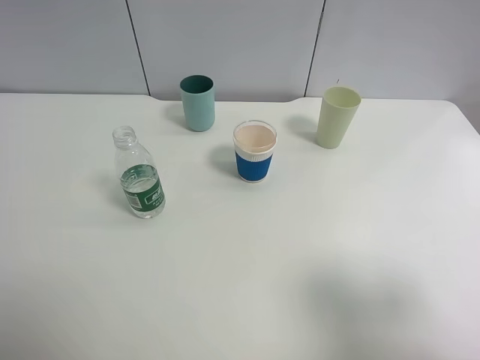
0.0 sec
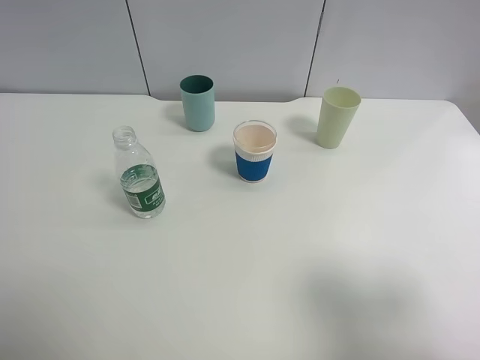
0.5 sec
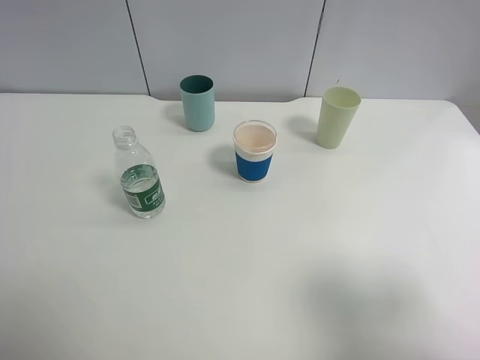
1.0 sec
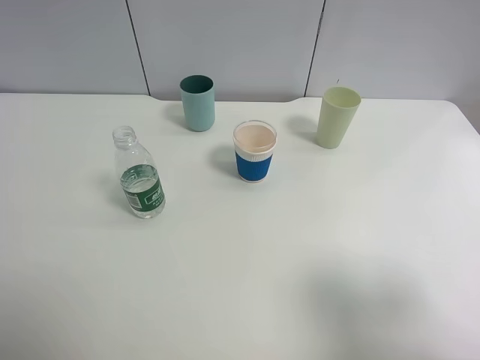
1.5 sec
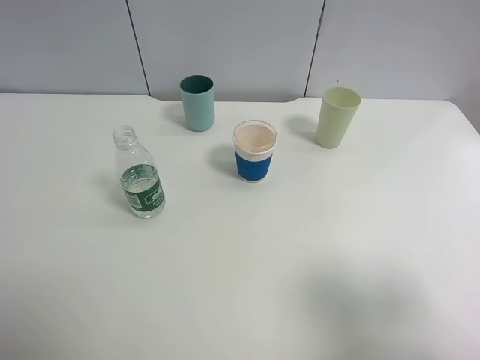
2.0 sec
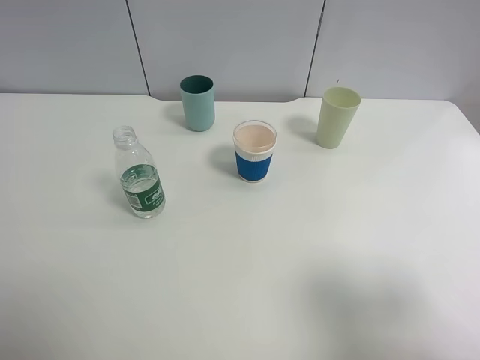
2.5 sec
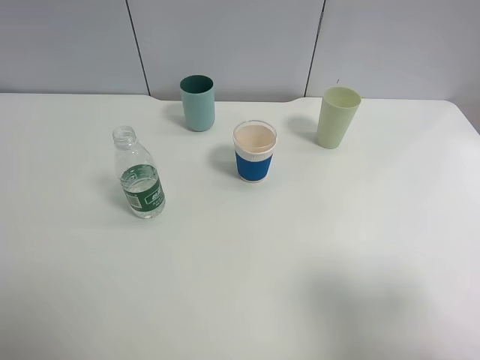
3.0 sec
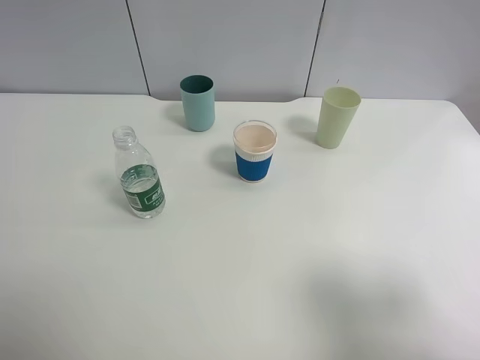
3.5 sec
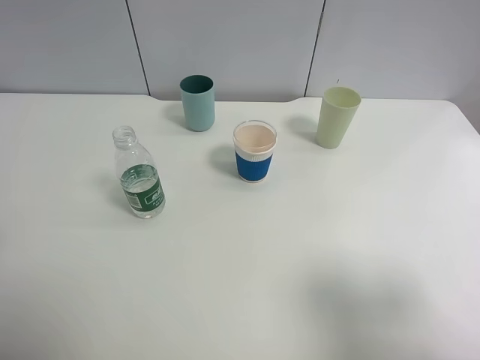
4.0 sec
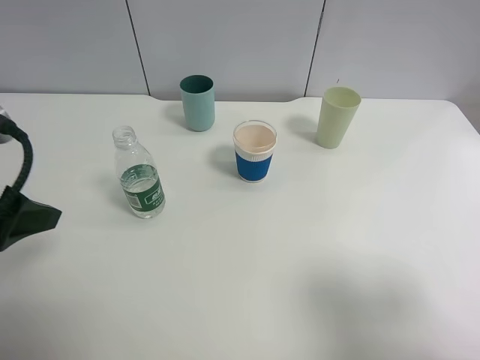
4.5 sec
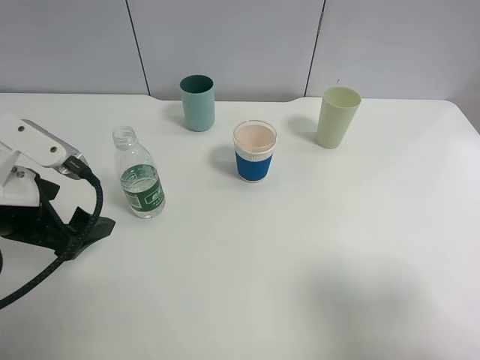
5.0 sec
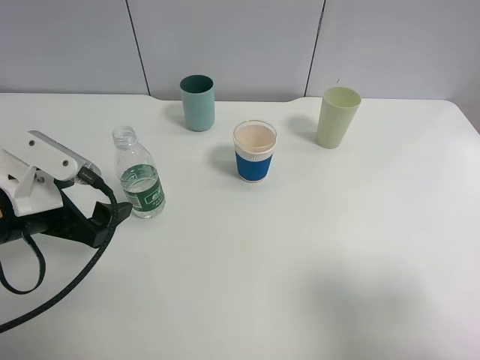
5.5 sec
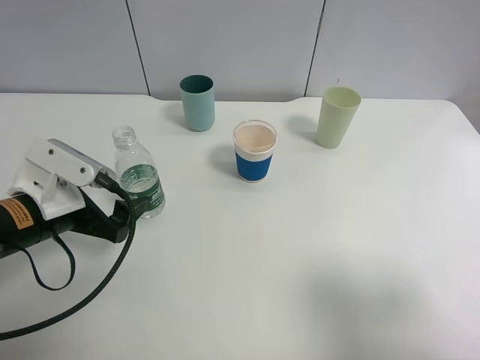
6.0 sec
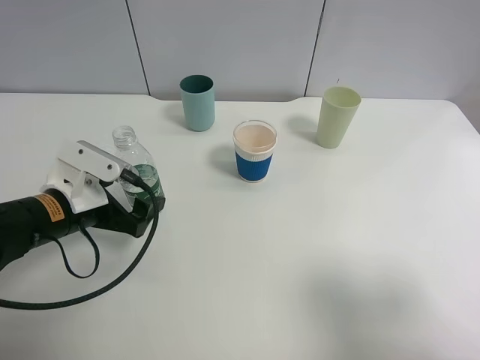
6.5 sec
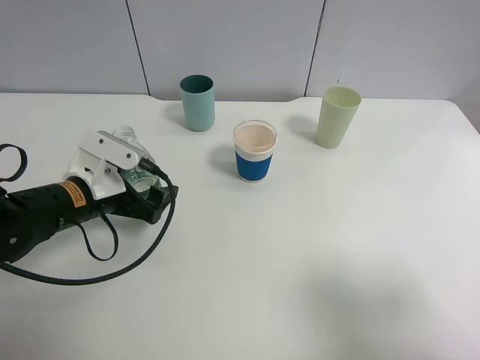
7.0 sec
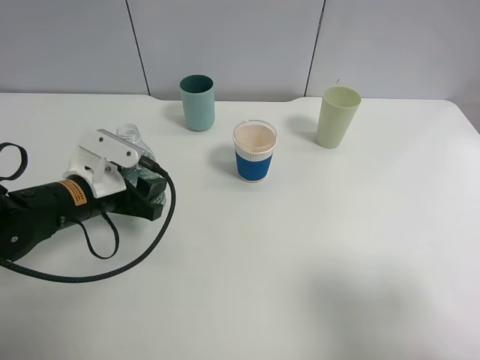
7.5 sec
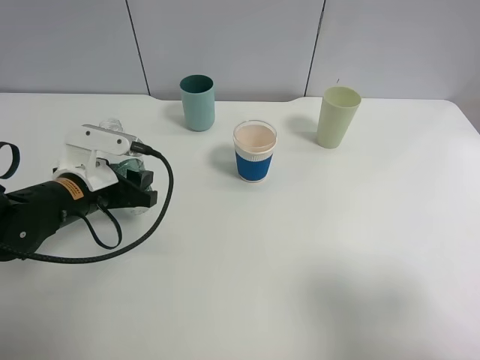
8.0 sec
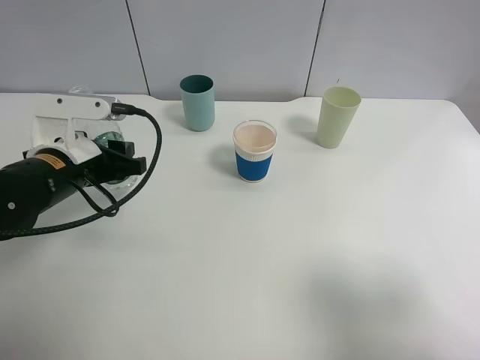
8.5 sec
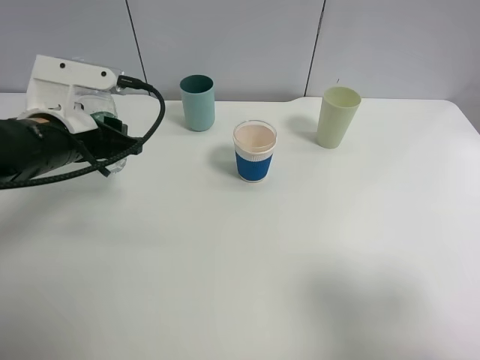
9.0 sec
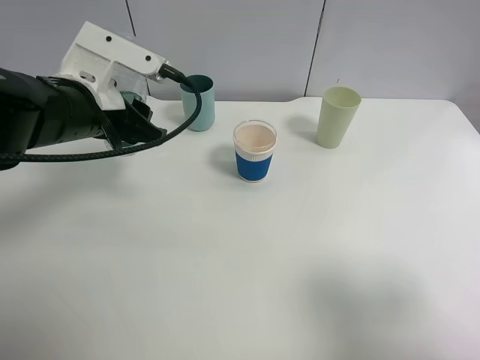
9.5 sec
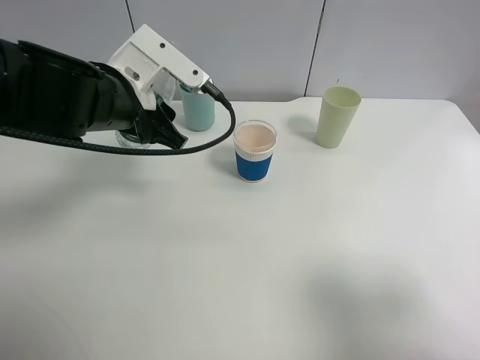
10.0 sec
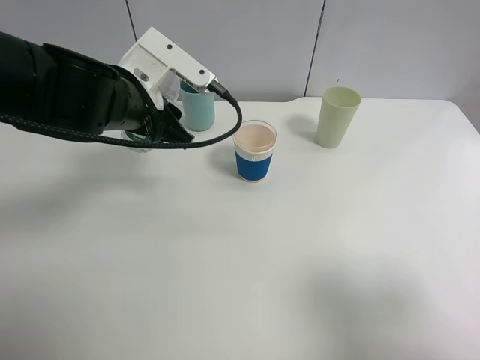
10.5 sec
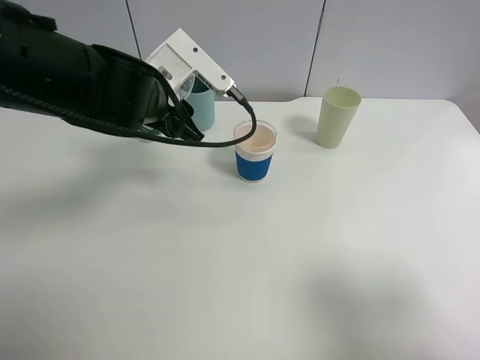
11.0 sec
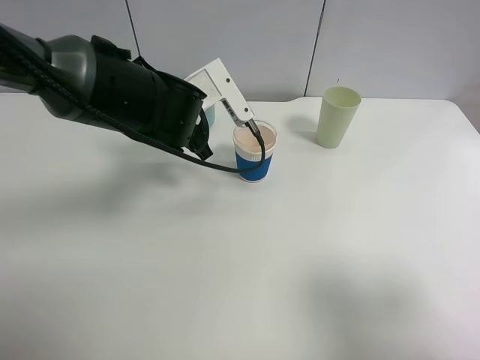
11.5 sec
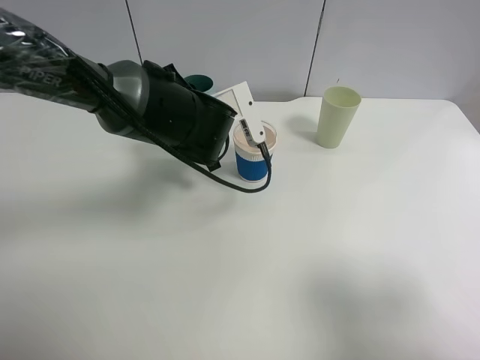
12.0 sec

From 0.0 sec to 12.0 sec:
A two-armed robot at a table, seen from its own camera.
Task of the whole recording: use a clamp to hold the bottle of the drink, pour the beverage into a random cup, then clamp the cup containing the drink and pour the drink into another random cup.
Step, from 0.0 sec to 8.0 sec: Pick up the water bottle with left gripper.
From 0.0 sec to 2.0 sec: Both grippers stay put.
From 4.0 sec to 6.0 sec: The left gripper shifts some 20 cm downward, forward and to the right.
From 6.0 sec to 8.0 sec: The left gripper shifts approximately 5 cm forward, and closes.
From 8.0 sec to 10.0 sec: The left gripper shifts some 10 cm upward and to the right.
From 10.0 sec to 12.0 sec: The left gripper is displaced to the right and downward by approximately 10 cm.

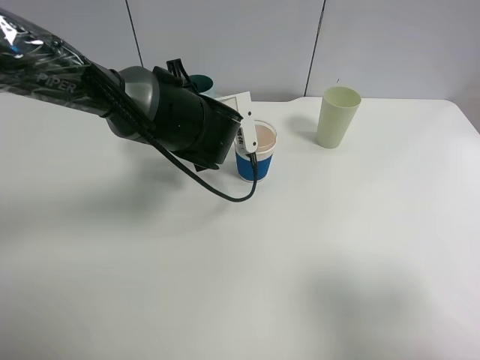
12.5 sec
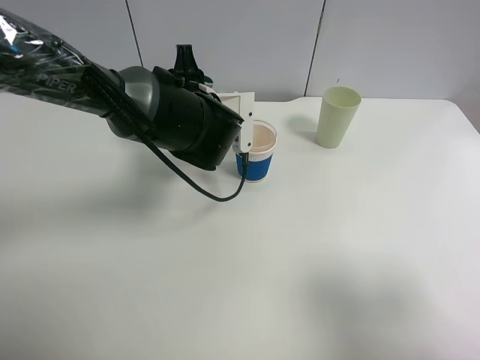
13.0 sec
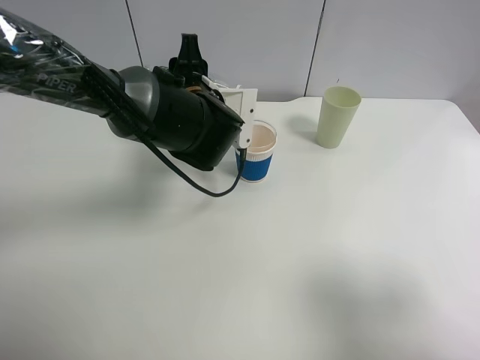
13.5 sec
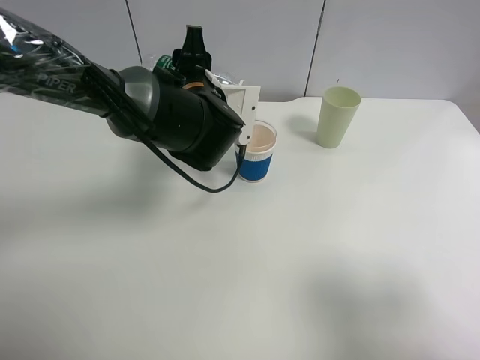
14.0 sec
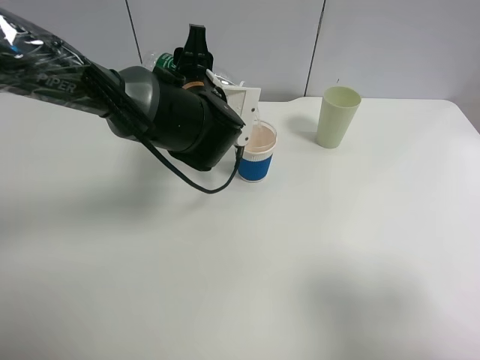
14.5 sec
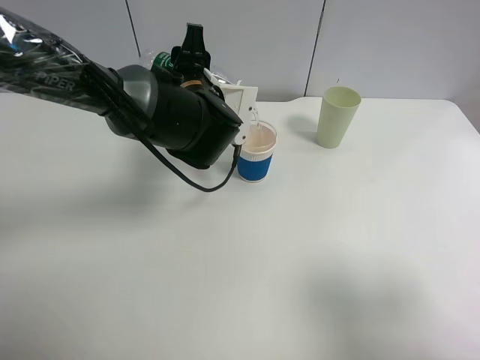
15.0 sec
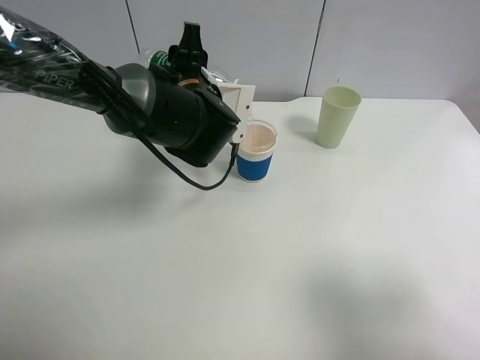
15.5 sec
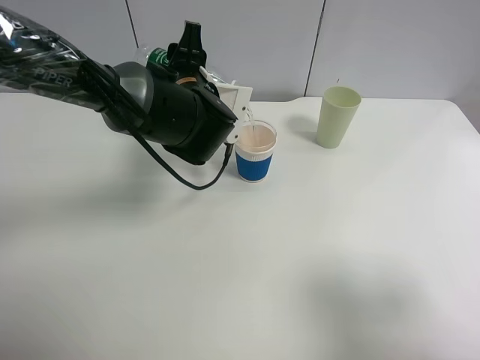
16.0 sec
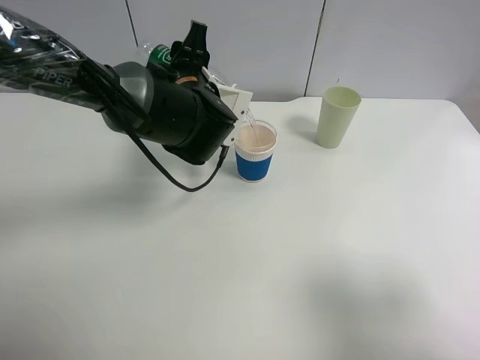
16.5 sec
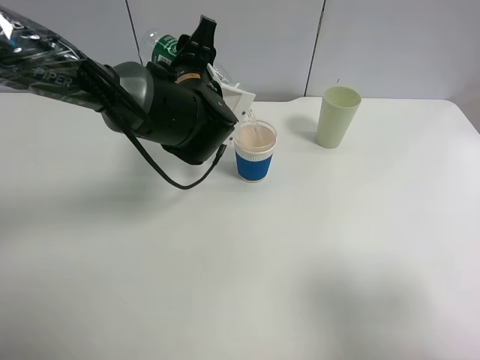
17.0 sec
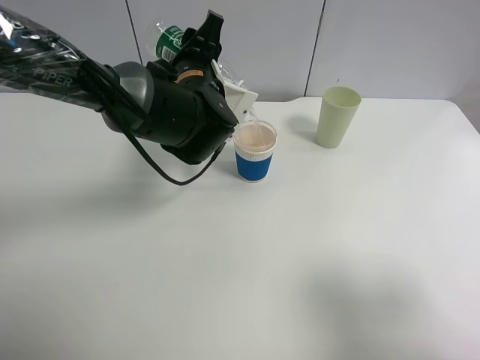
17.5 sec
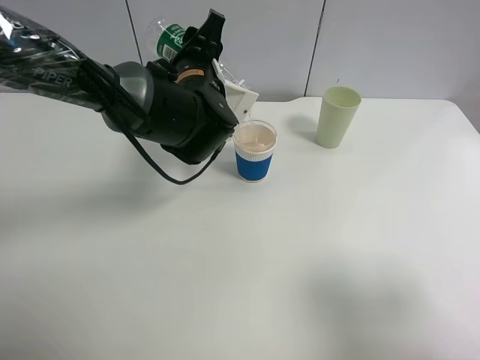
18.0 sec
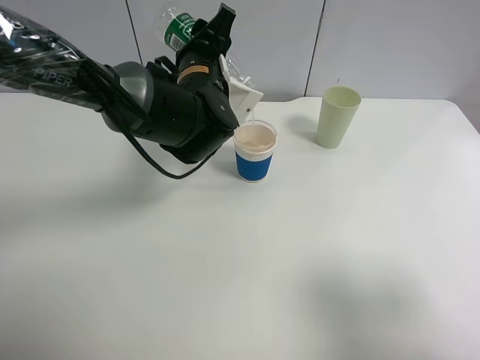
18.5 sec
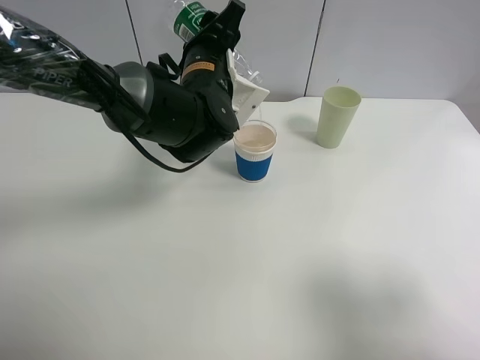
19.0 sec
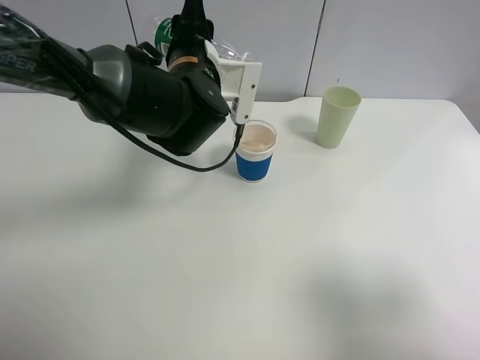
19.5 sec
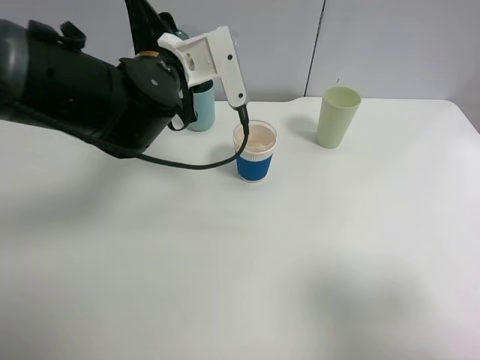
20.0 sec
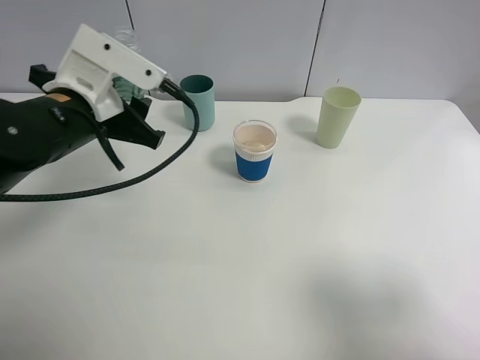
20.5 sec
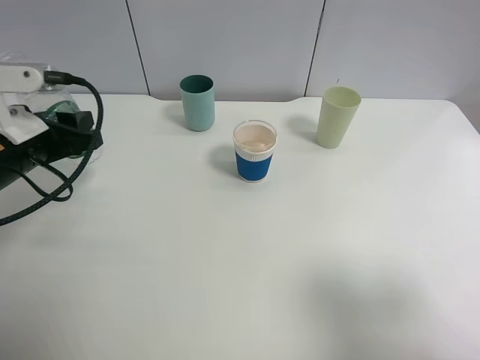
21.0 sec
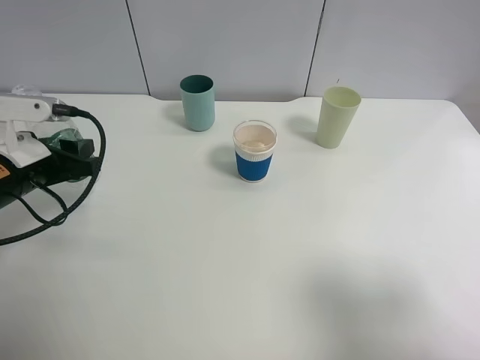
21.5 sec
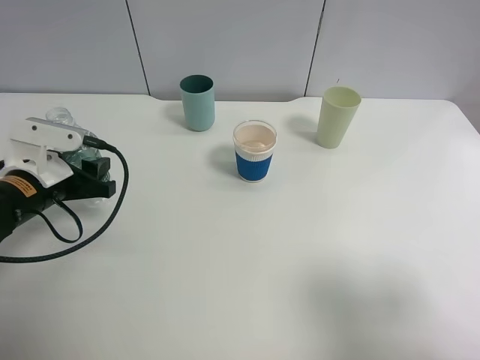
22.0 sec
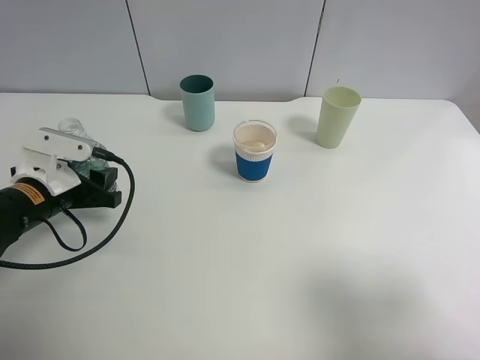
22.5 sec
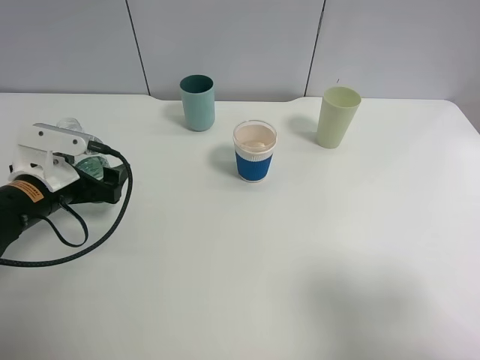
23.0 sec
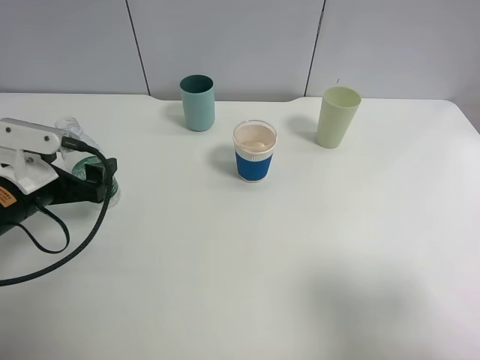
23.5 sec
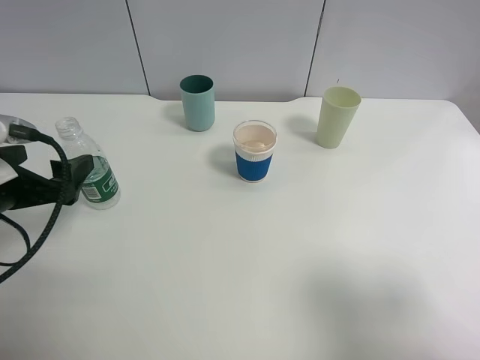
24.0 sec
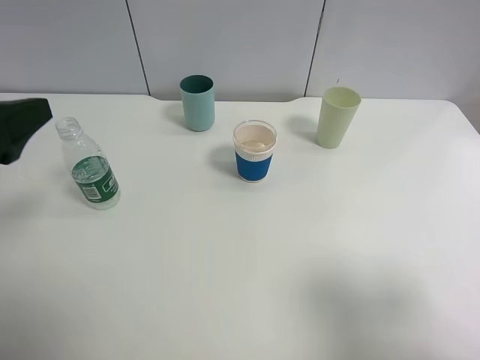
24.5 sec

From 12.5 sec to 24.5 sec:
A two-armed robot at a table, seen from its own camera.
Task of the whole recording: use a clamp to hold the bottle of the drink, pour the beverage into a random cup, then clamp the cup containing the drink and pour the drink into another random cup.
Step, from 12.5 sec to 19.5 sec: Pour water into the paper cup with left gripper.
Step, from 20.0 sec to 23.5 sec: Place the water bottle on the table with left gripper.
From 14.5 sec to 16.5 sec: There are only small adjustments of the grippers.
From 16.5 sec to 18.5 sec: There are only small adjustments of the grippers.
From 18.5 sec to 20.5 sec: The left gripper moves to the left and backward, roughly 15 cm.
From 20.5 sec to 22.5 sec: The left gripper is displaced downward and to the left by some 15 cm.
From 22.5 sec to 24.5 sec: The left gripper goes approximately 20 cm upward and backward, and opens up.

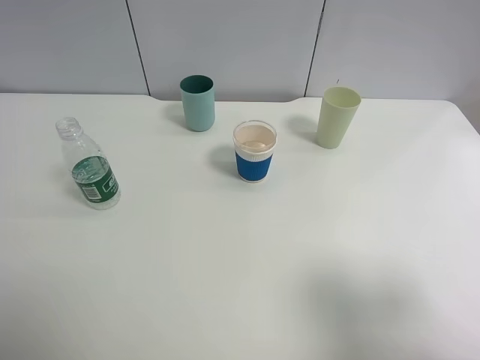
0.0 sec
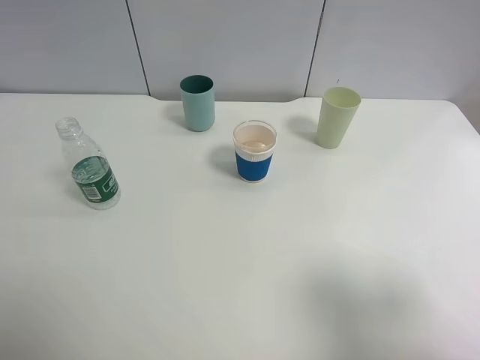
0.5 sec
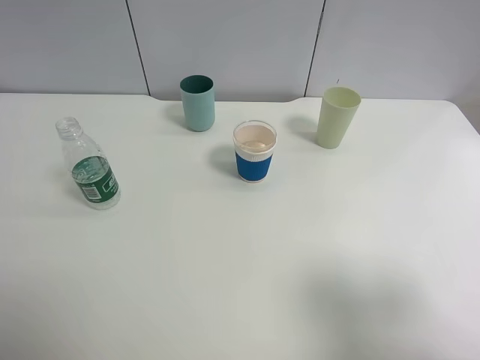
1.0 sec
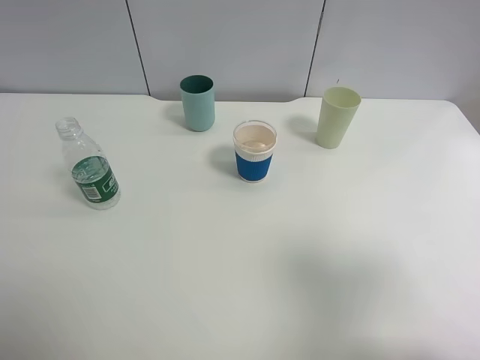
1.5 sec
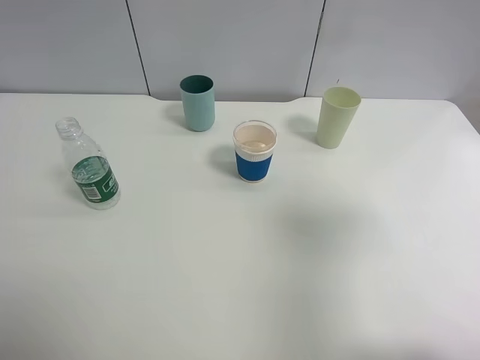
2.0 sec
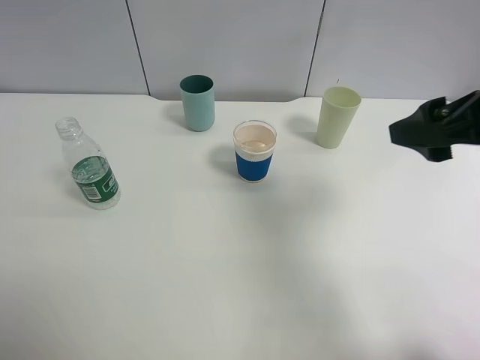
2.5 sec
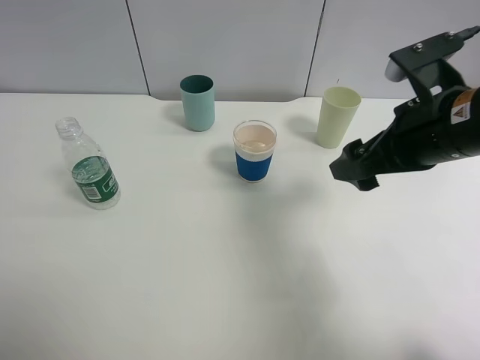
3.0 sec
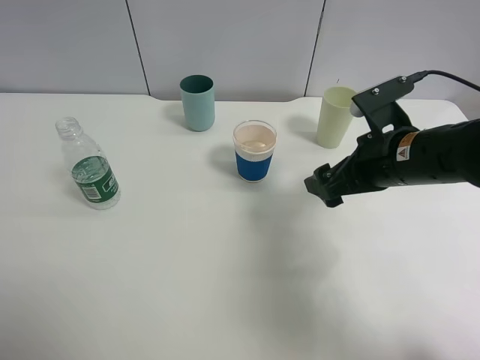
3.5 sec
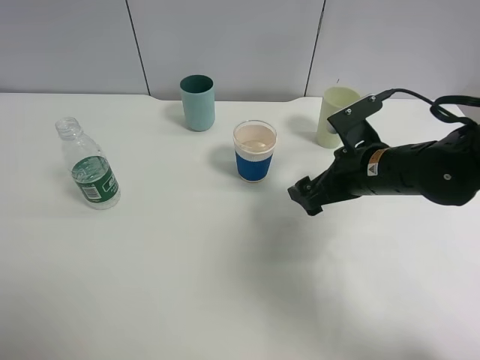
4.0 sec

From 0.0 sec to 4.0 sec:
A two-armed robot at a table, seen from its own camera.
Task of the whole recording: use a clamp to hold the bottle of the drink, pour the beverage into a random cup, then clamp the cup containing the drink and pour the drink into another random cup.
From 0.0 sec to 2.0 sec: The right gripper travels forward and upward by roughly 10 cm.
From 2.0 sec to 4.0 sec: The right gripper heads downward, forward and to the left, covering about 25 cm.
